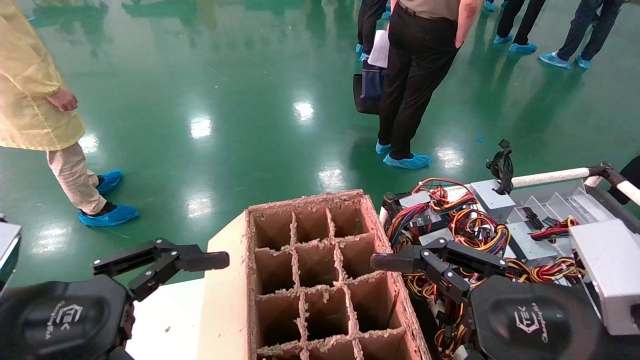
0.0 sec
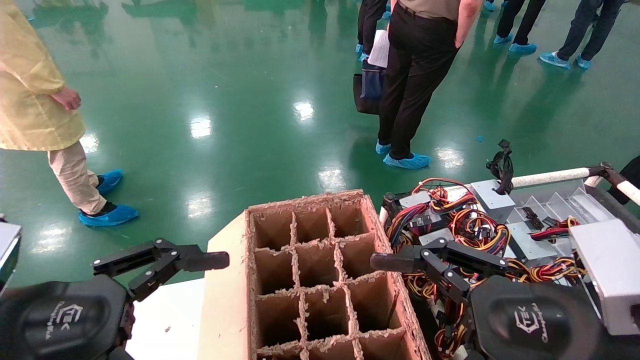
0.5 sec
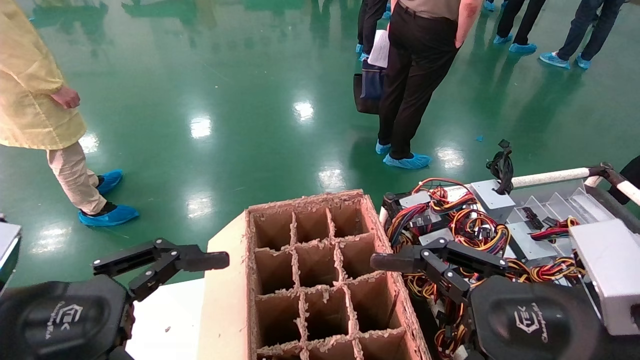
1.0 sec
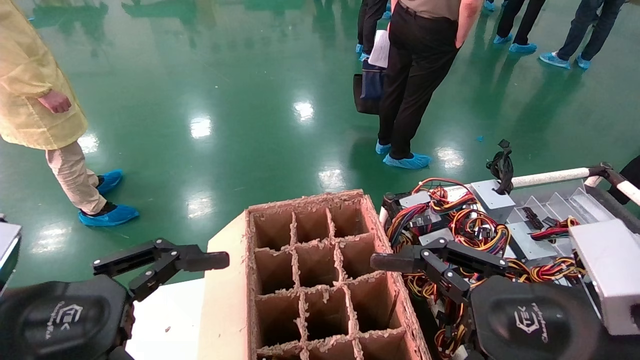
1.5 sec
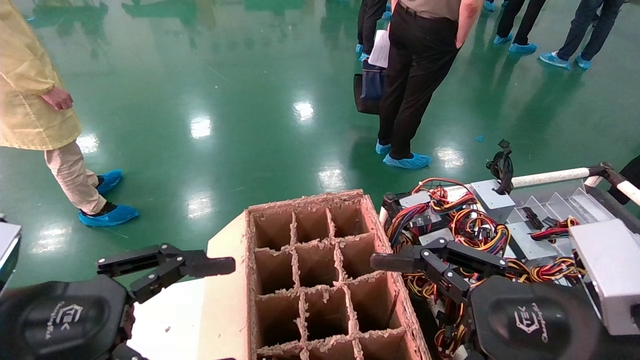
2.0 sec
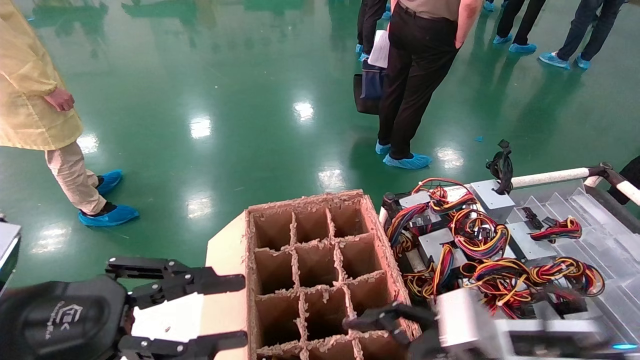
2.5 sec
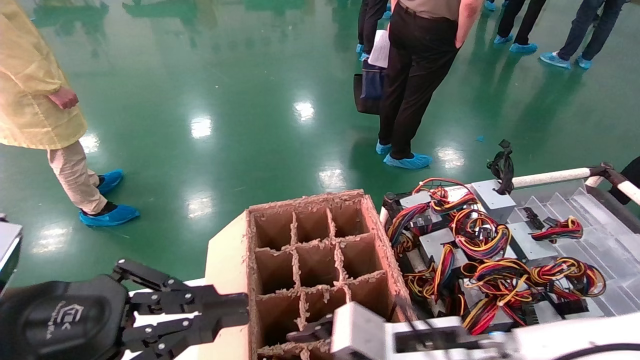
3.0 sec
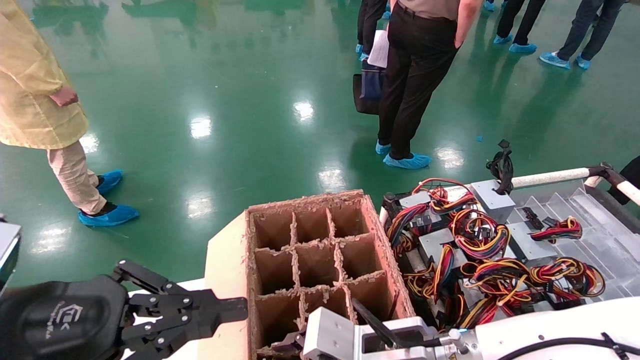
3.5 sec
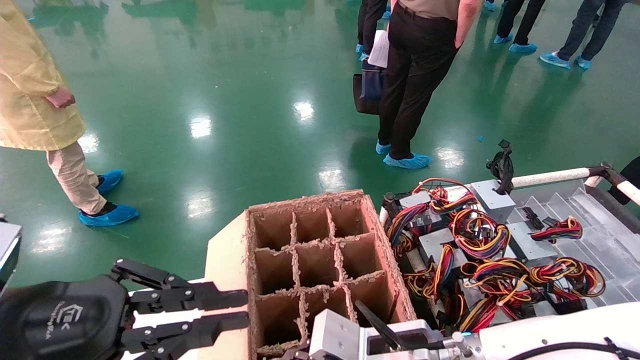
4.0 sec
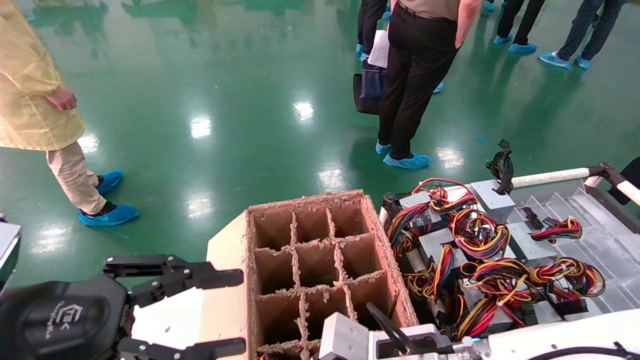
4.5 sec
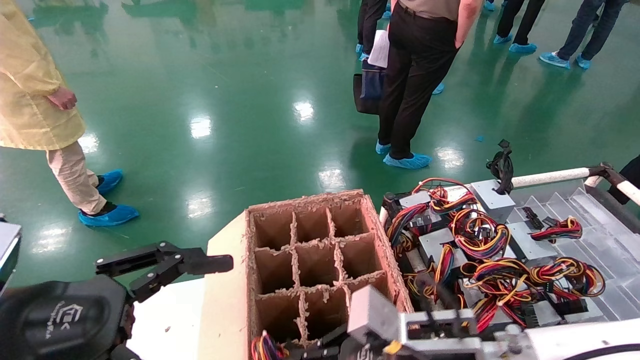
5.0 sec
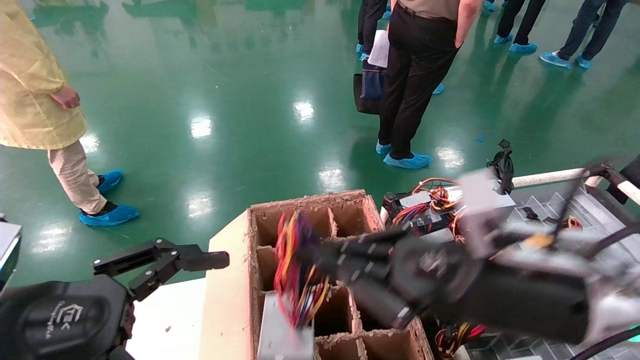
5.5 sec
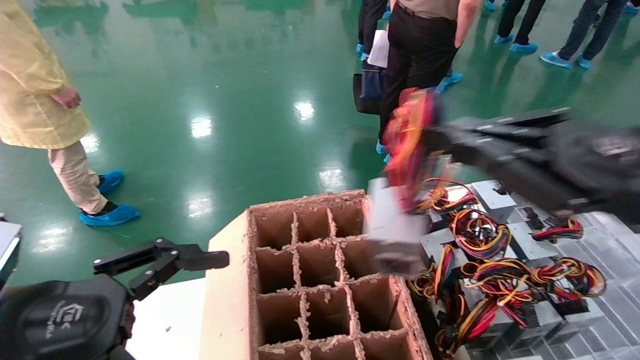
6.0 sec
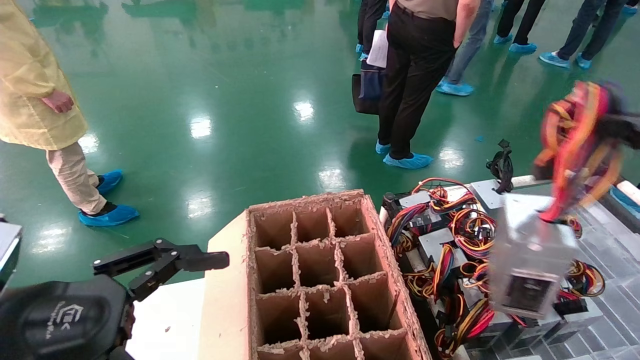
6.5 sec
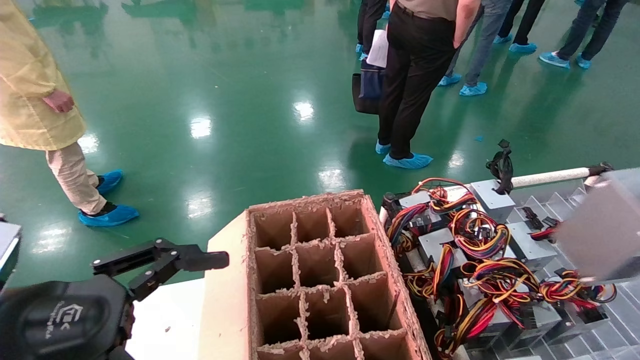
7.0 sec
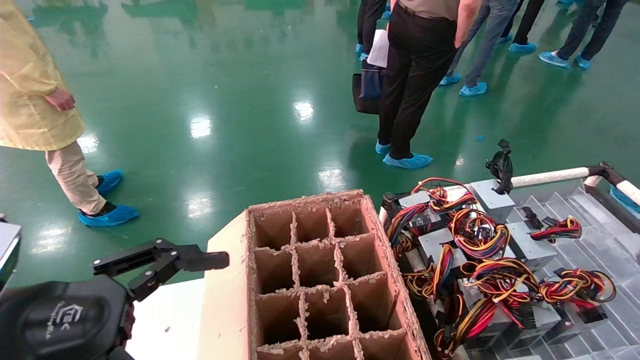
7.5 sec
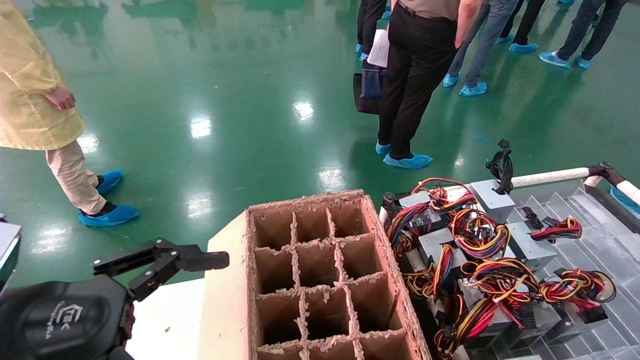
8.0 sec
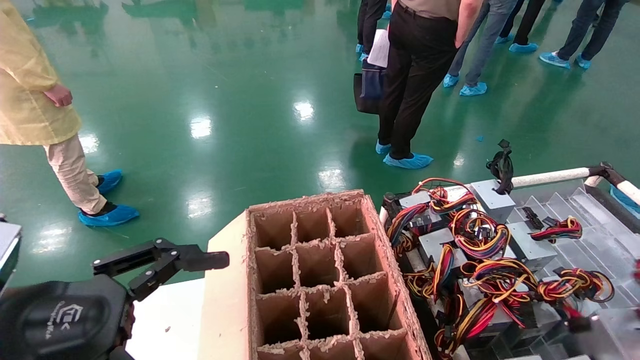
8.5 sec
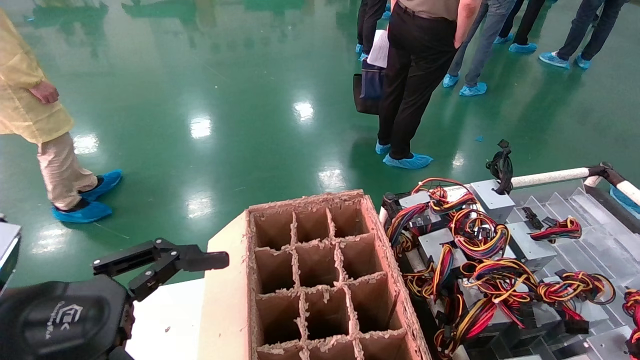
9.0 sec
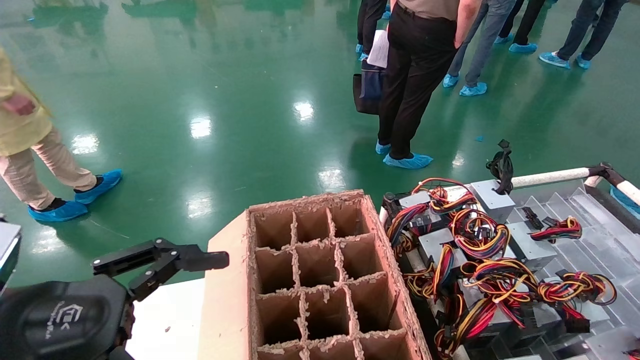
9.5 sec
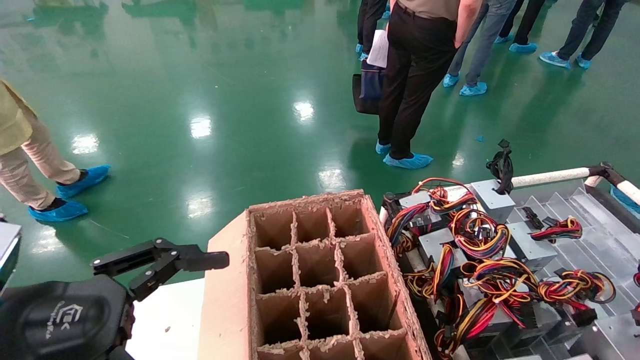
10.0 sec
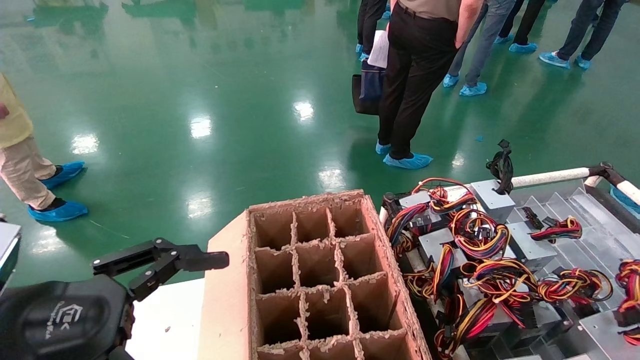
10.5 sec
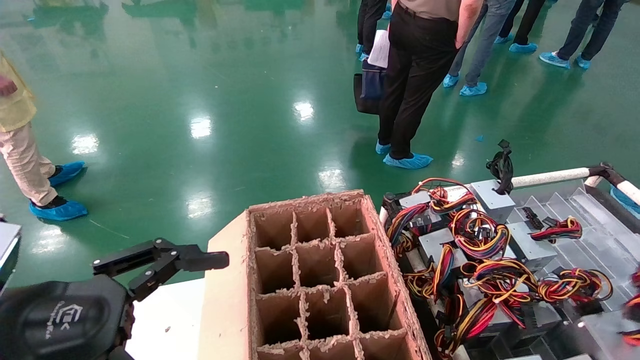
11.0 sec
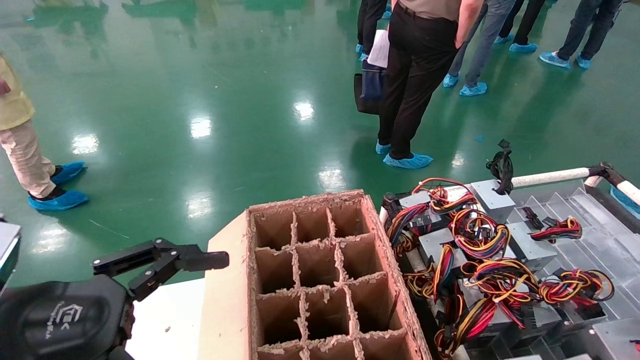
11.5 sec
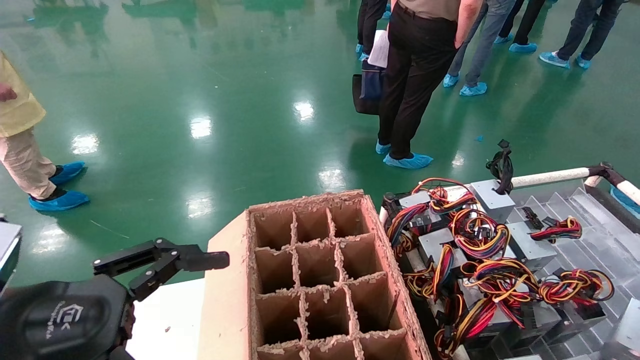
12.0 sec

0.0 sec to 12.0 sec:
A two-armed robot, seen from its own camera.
Step, 2.5 sec to 4.5 sec: Grab and lift the power supply from the large box.
0.0 sec to 2.0 sec: Both grippers stay put.
2.0 sec to 4.0 sec: The right gripper moves to the left, downward and forward, approximately 20 cm, and closes up. Meanwhile the left gripper closes.
4.0 sec to 6.0 sec: The left gripper opens up. Meanwhile the right gripper moves upward, to the right and backward, about 30 cm, and closes its fingers.
6.0 sec to 8.0 sec: The right gripper shifts some 30 cm to the right and backward.
8.0 sec to 10.0 sec: The right gripper heads downward, covering approximately 10 cm.
10.0 sec to 12.0 sec: The right gripper moves downward, about 10 cm.

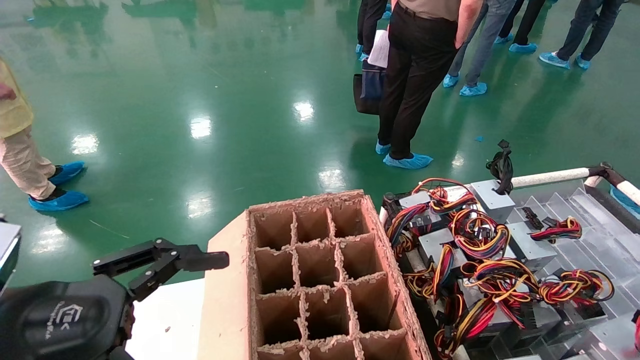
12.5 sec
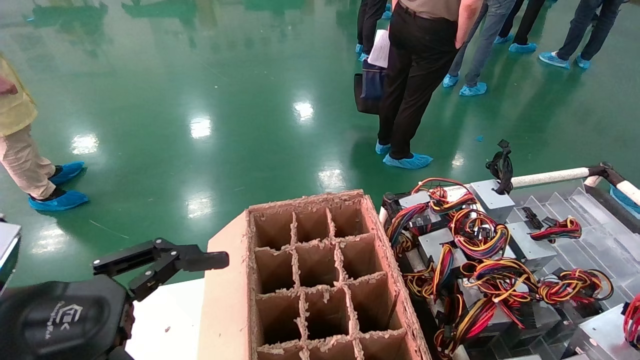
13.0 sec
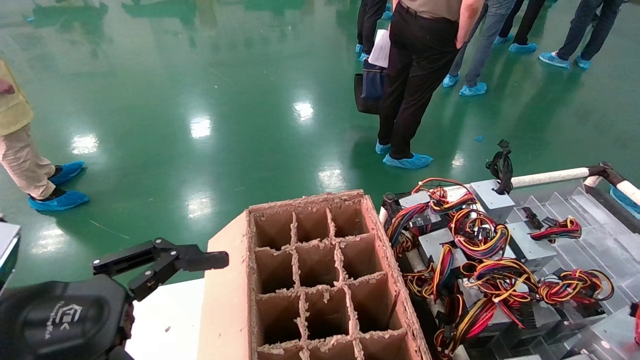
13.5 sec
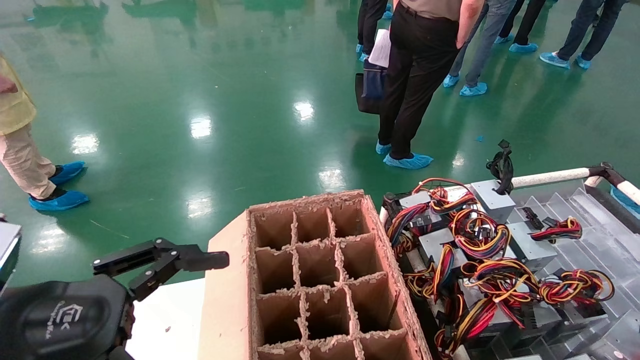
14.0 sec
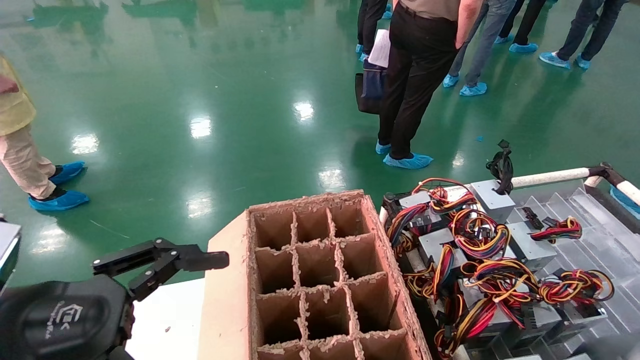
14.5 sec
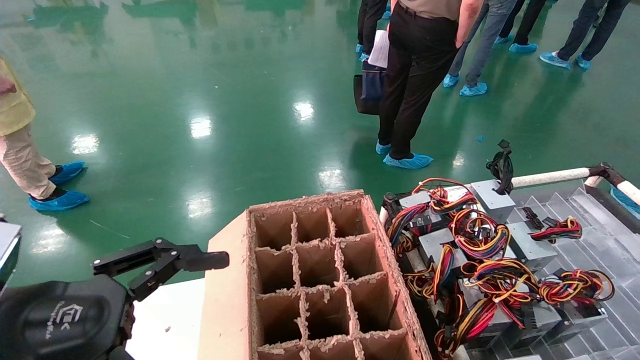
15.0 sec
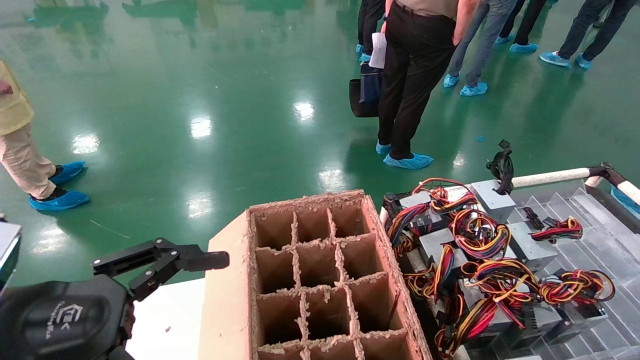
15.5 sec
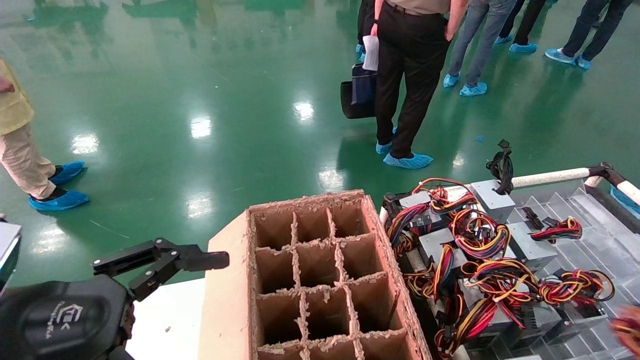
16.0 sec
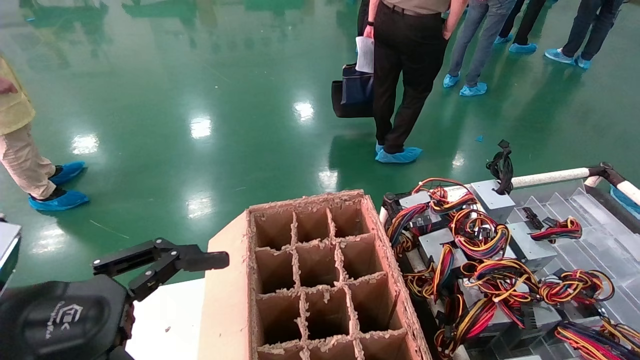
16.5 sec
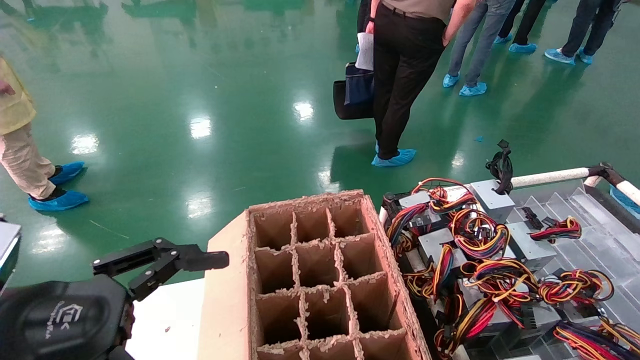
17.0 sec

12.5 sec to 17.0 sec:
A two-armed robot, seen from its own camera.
Step, 12.5 sec to 16.0 sec: Place the power supply on the operating table.
12.5 sec to 14.5 sec: The right gripper moves upward and to the right, roughly 10 cm.
14.5 sec to 17.0 sec: The right gripper is displaced to the left and forward by roughly 10 cm, and opens its fingers.
